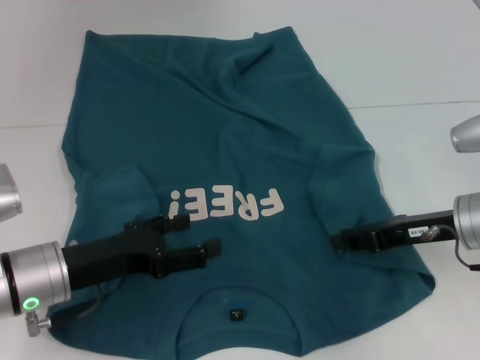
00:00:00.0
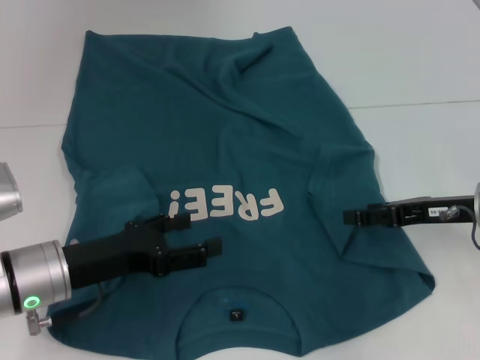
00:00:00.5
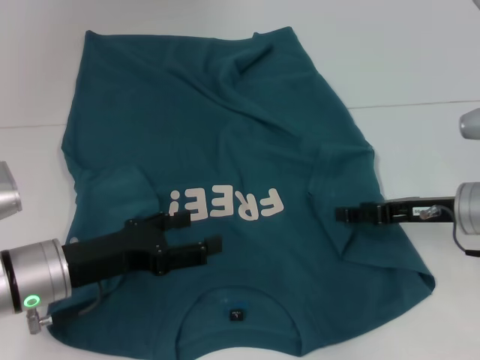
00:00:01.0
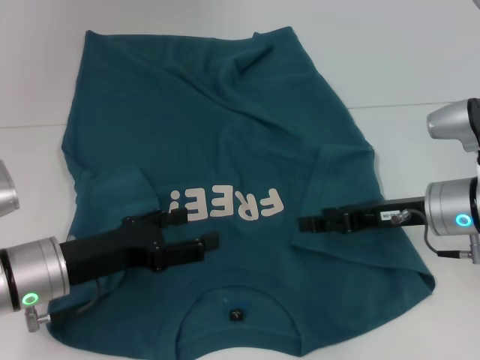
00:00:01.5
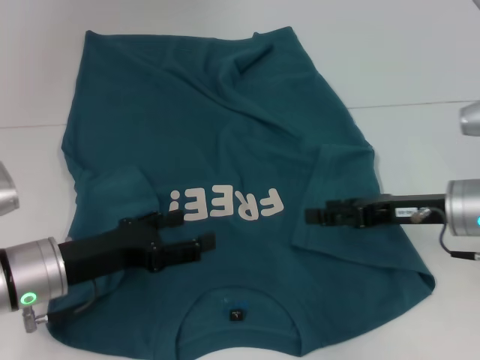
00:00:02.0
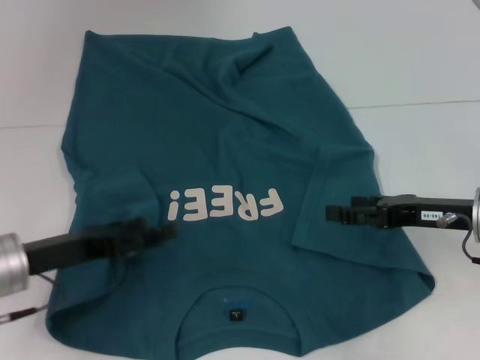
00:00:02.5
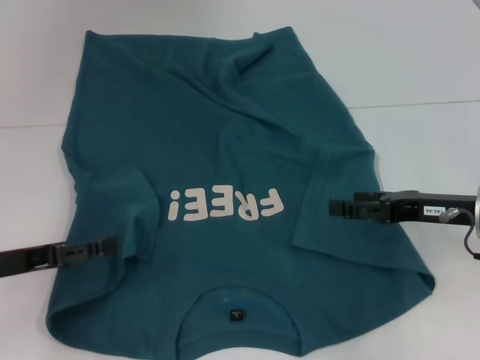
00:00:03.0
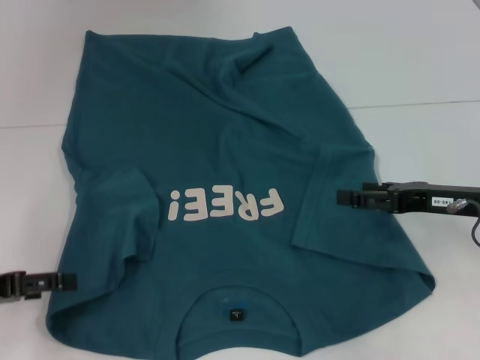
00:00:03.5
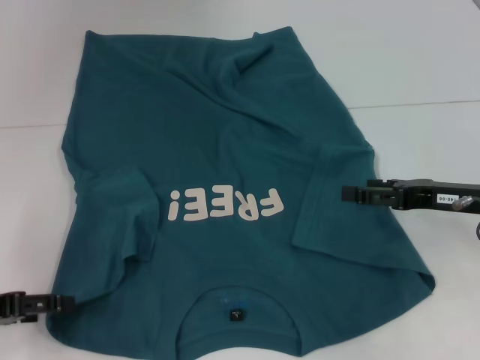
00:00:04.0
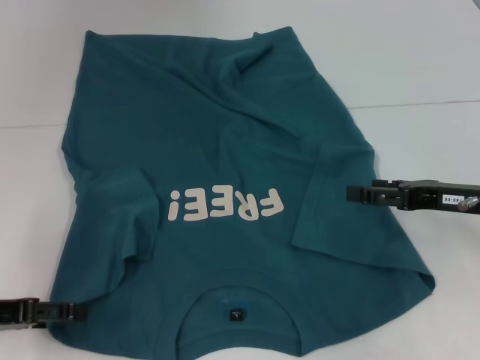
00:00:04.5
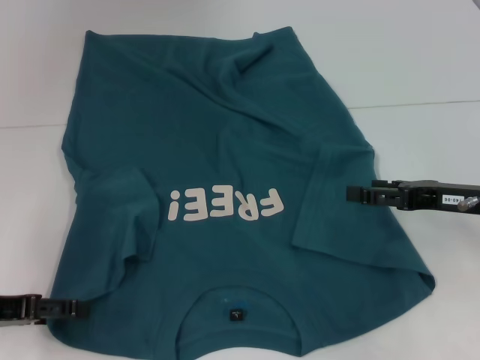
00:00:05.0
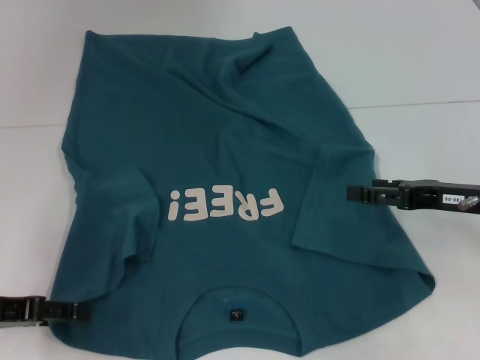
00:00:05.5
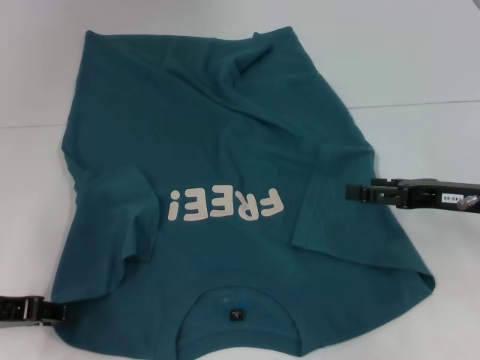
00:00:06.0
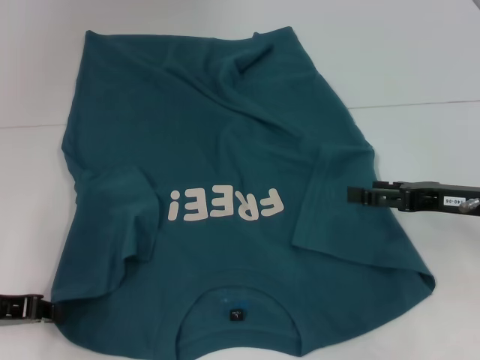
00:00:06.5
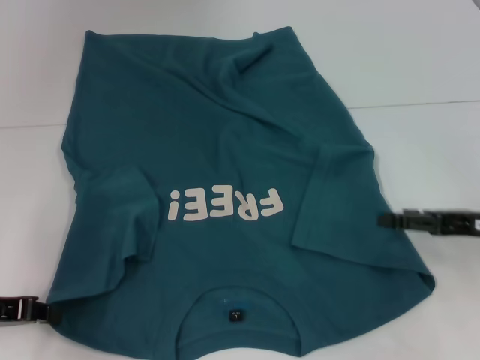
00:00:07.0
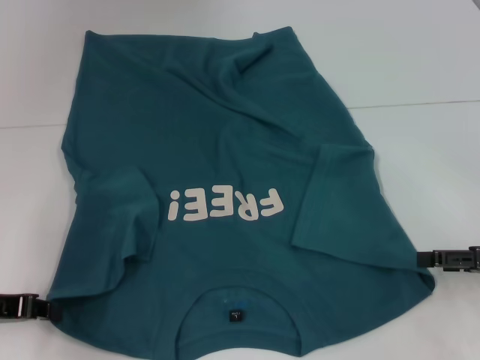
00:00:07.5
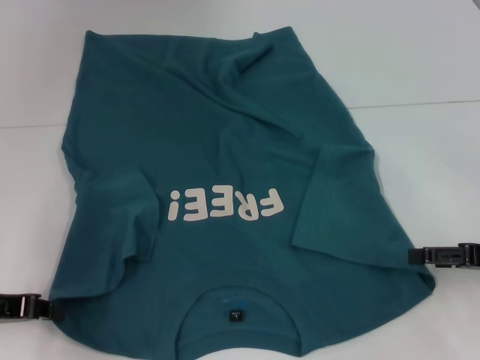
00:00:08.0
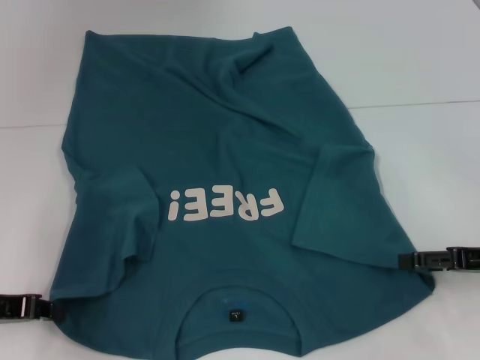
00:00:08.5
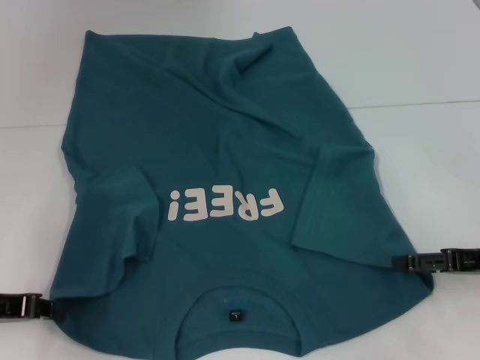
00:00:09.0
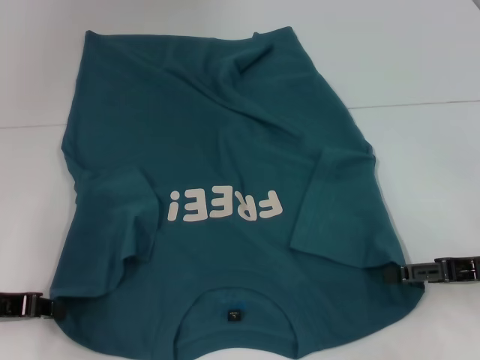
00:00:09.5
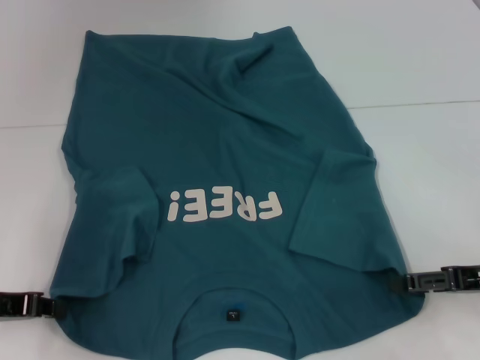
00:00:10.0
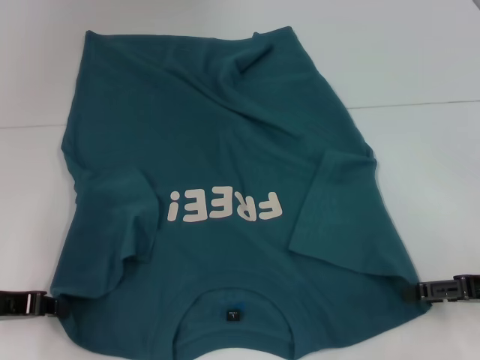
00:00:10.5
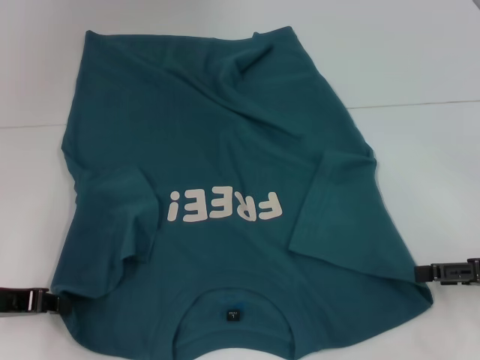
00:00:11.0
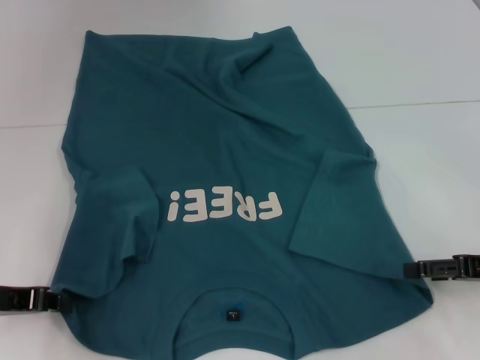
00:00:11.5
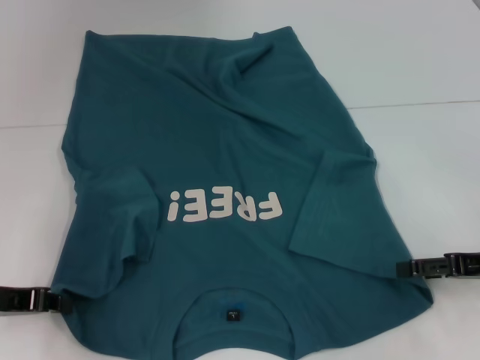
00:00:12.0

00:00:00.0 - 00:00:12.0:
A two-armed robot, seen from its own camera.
Step, 00:00:00.0 - 00:00:02.0: Fold the bottom right sleeve to the right.
Step, 00:00:02.5 - 00:00:07.5: Grab the bottom left corner with your left hand.
00:00:00.0 - 00:00:02.0: The right gripper opens its fingers.
00:00:02.0 - 00:00:04.0: The left gripper travels to the left by roughly 10 cm.
00:00:04.0 - 00:00:06.0: The grippers move only a little.
00:00:06.0 - 00:00:08.0: The left gripper closes up; the right gripper moves to the right, some 5 cm.
00:00:08.0 - 00:00:12.0: The grippers move only a little.

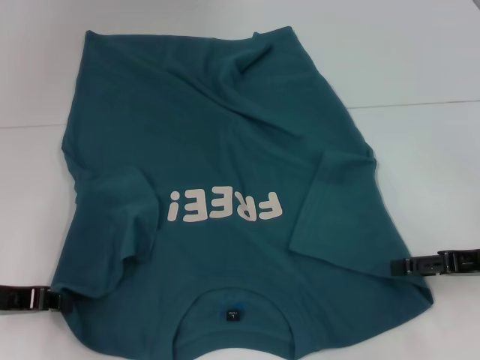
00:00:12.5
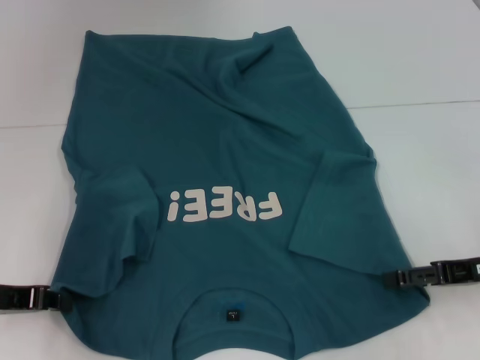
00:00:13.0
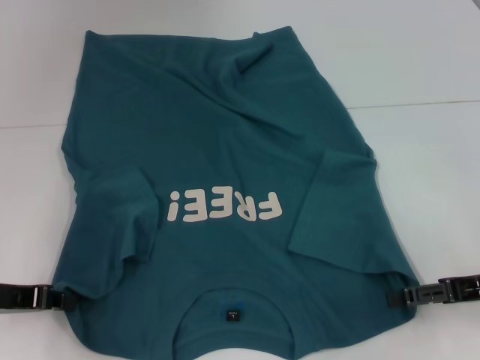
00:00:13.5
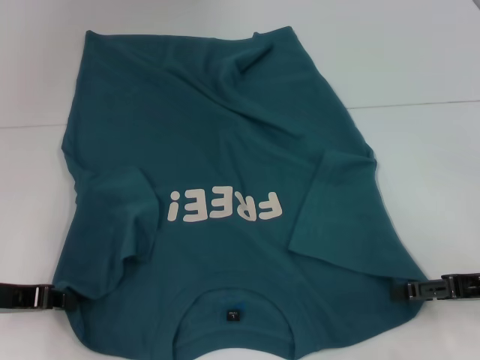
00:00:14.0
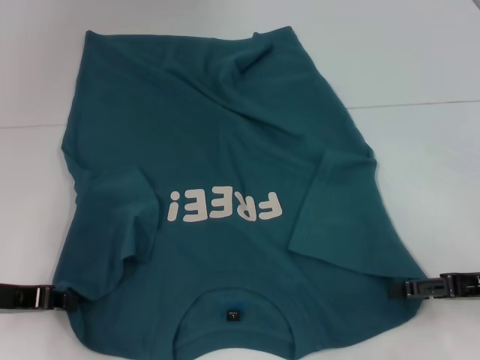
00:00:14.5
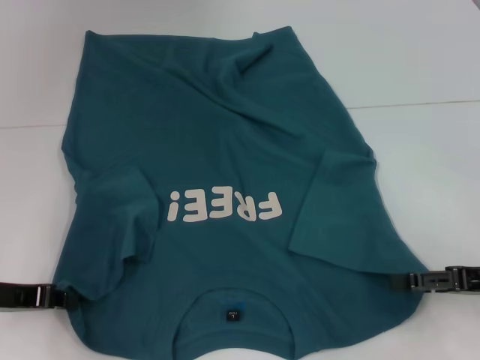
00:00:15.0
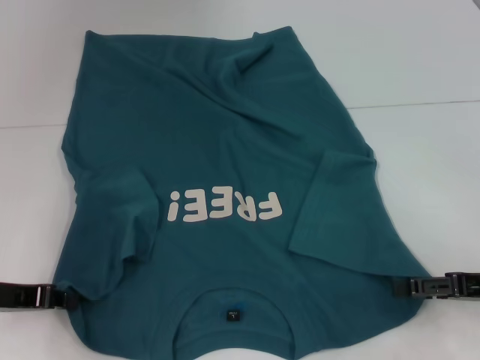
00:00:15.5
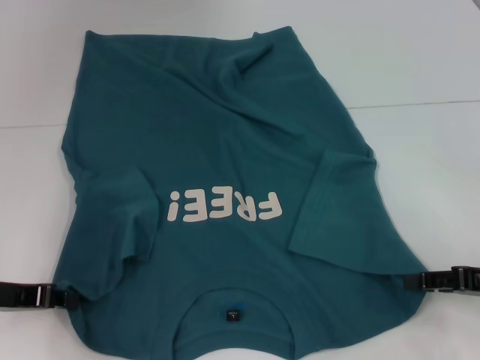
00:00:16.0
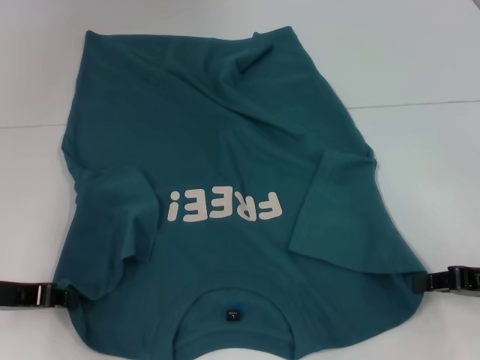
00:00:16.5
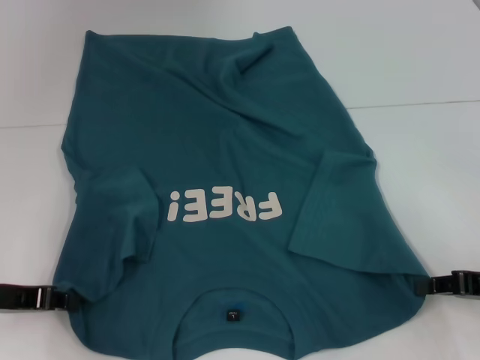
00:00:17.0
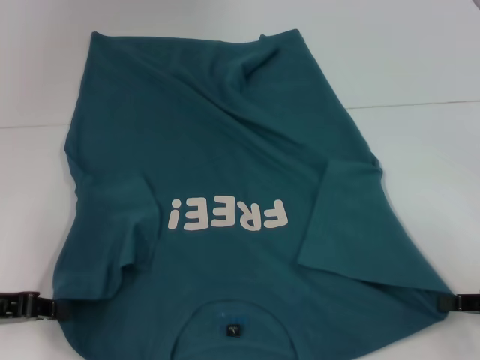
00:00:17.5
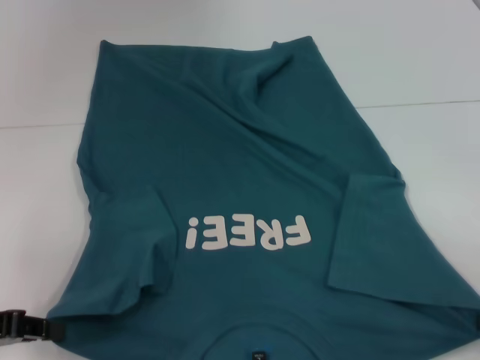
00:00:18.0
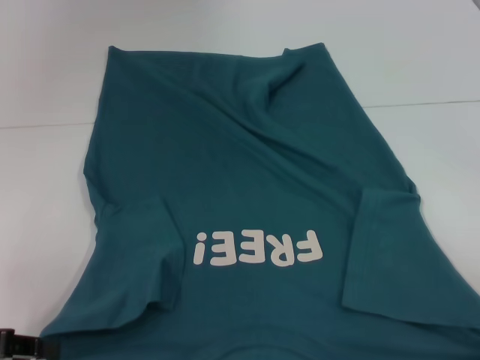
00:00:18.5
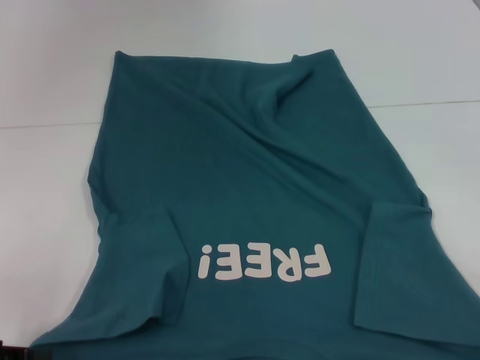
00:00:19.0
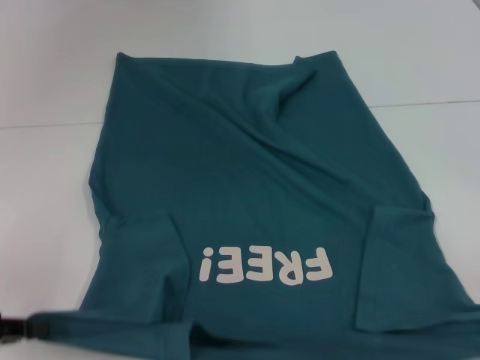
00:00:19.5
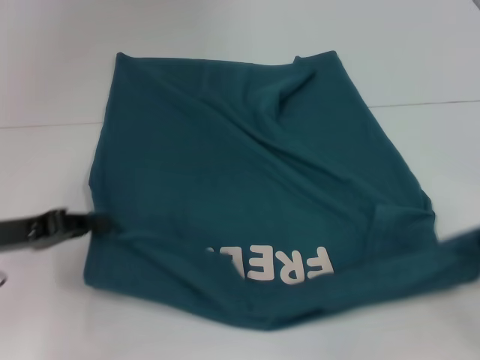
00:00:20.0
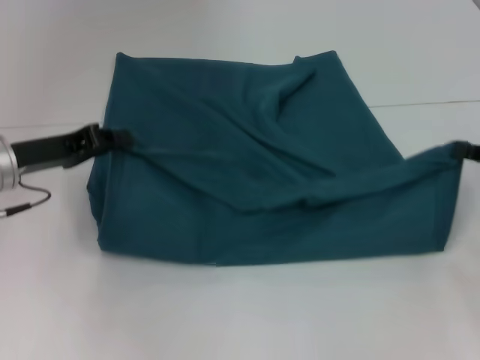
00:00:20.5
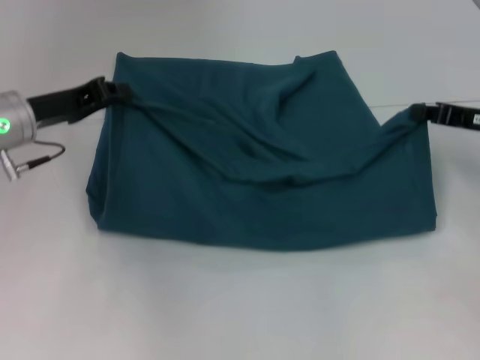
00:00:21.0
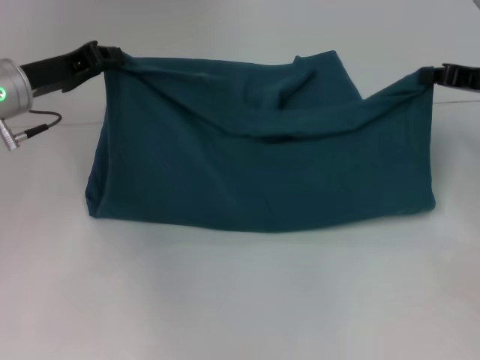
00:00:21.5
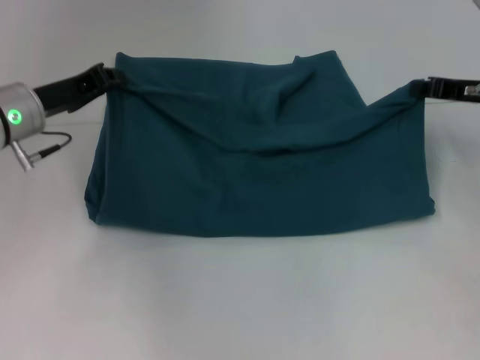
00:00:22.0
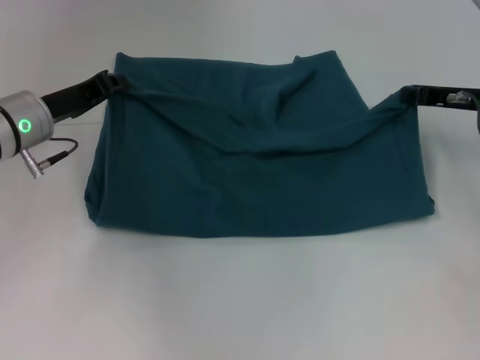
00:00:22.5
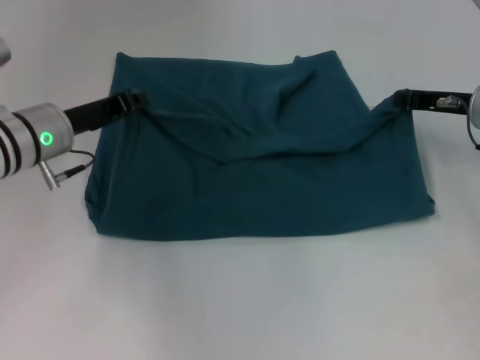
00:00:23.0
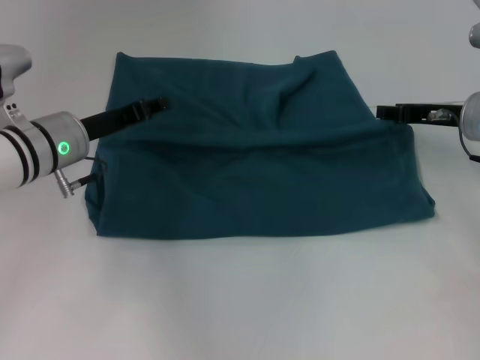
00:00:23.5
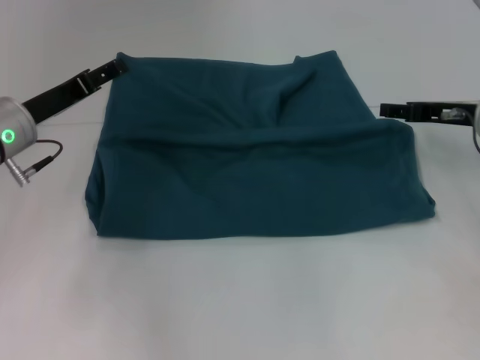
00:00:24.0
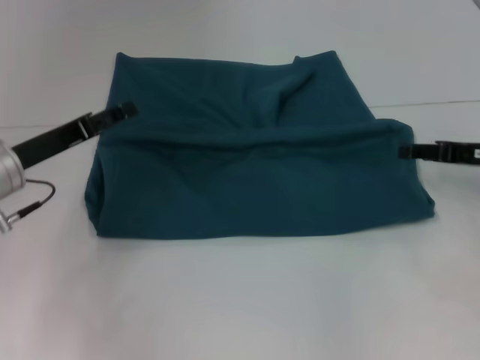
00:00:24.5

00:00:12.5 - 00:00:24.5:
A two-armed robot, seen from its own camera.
Step, 00:00:12.5 - 00:00:16.5: Grab the bottom right corner with your right hand.
Step, 00:00:17.0 - 00:00:24.0: Fold the clothes to the left.
Step, 00:00:17.0 - 00:00:24.0: Fold the clothes to the right.
00:00:12.5 - 00:00:14.5: The grippers stay close to where they were, moving slightly.
00:00:14.5 - 00:00:16.5: The right gripper closes.
00:00:16.5 - 00:00:18.5: The left gripper goes about 5 cm backward; the right gripper shifts approximately 10 cm backward and to the right.
00:00:18.5 - 00:00:20.5: The right gripper is displaced forward by some 15 cm. Meanwhile the left gripper heads forward and to the right, covering approximately 15 cm.
00:00:20.5 - 00:00:22.5: The right gripper travels forward and to the left by some 15 cm. Meanwhile the left gripper ends up approximately 5 cm from where it was.
00:00:22.5 - 00:00:24.5: Both grippers move backward, roughly 5 cm. The left gripper opens its fingers, while the right gripper opens up.

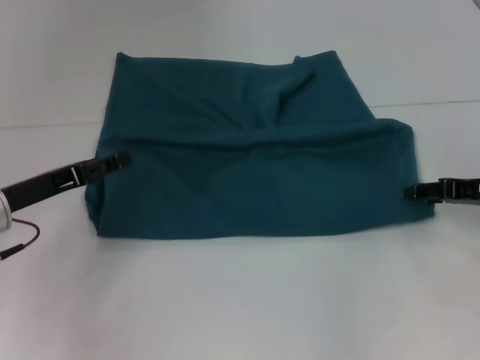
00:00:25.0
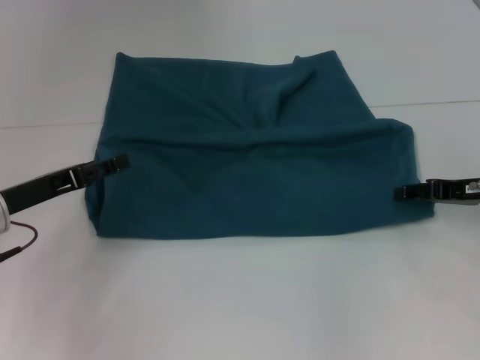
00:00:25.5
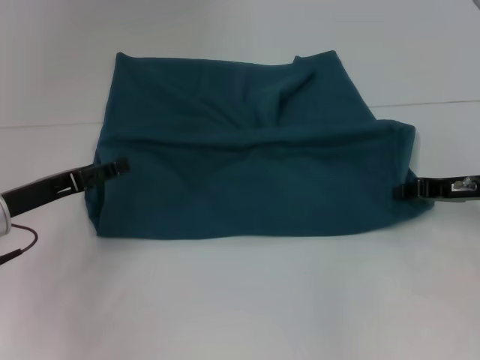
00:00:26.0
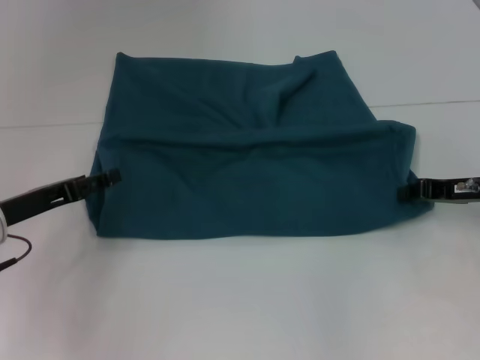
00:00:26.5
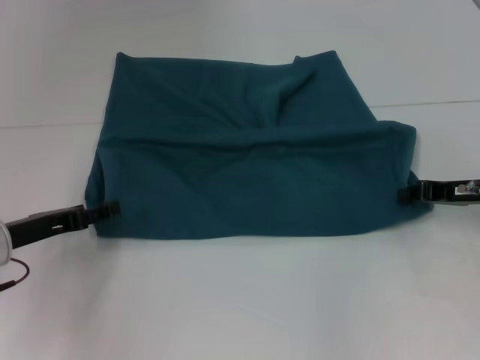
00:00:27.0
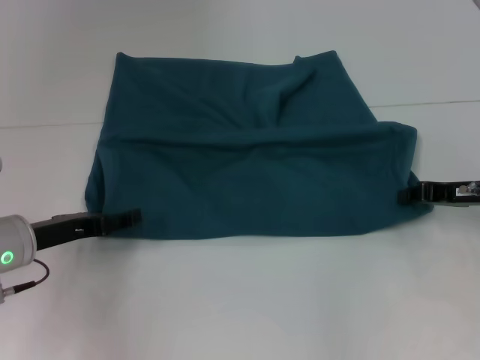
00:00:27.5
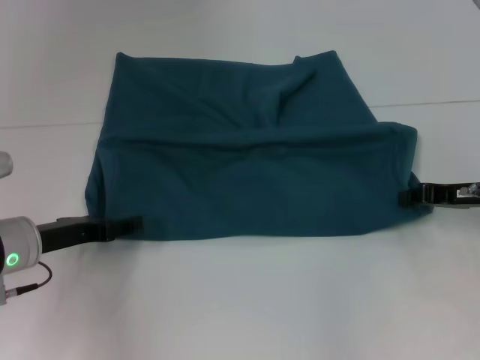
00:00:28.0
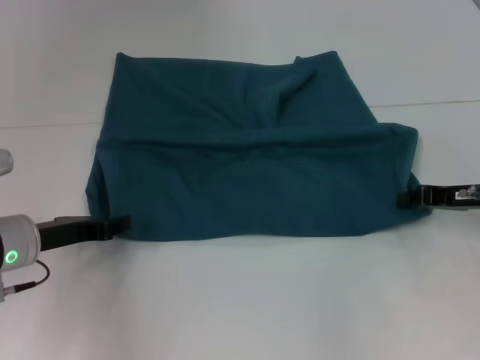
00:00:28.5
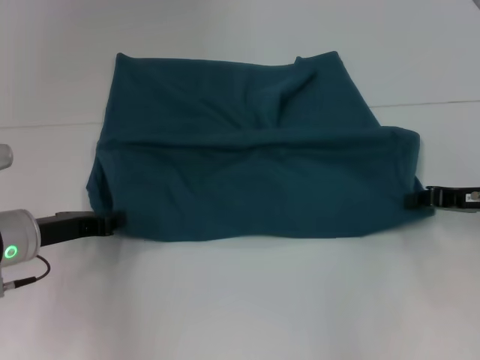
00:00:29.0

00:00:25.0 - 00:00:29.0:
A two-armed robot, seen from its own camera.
00:00:25.0 - 00:00:27.0: The right gripper closes.
00:00:27.0 - 00:00:29.0: The left gripper closes.
